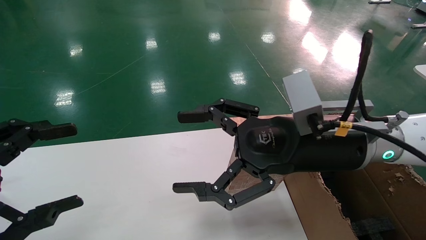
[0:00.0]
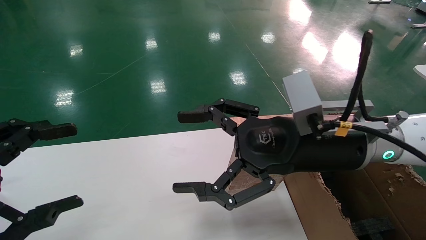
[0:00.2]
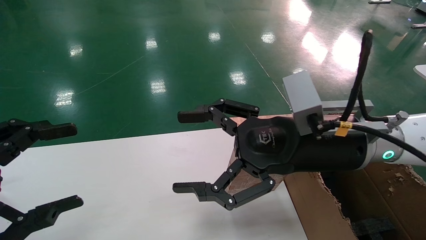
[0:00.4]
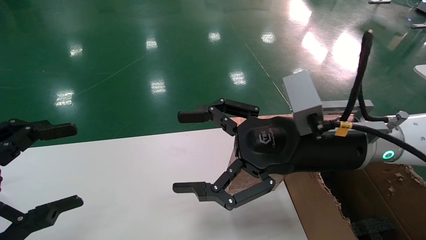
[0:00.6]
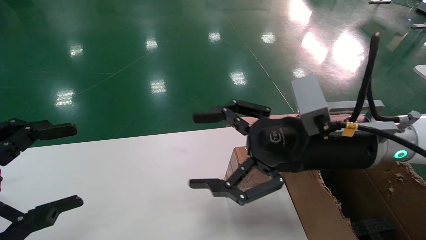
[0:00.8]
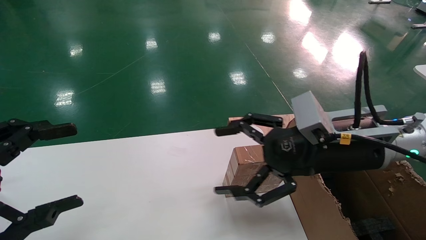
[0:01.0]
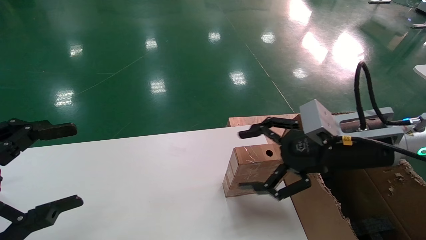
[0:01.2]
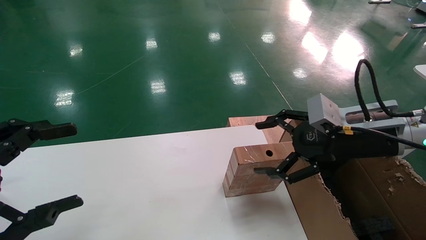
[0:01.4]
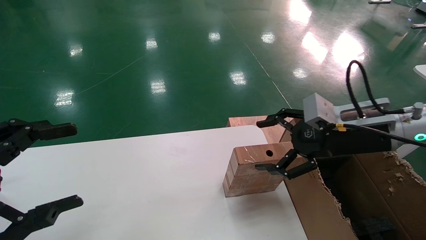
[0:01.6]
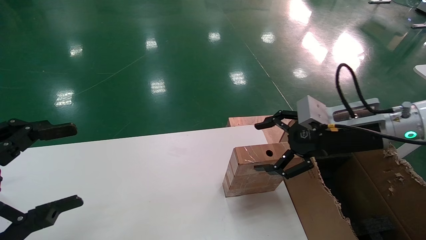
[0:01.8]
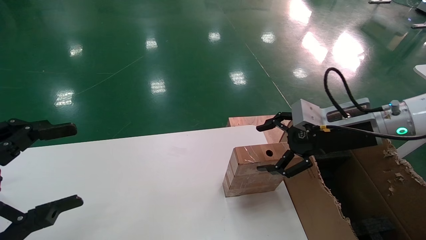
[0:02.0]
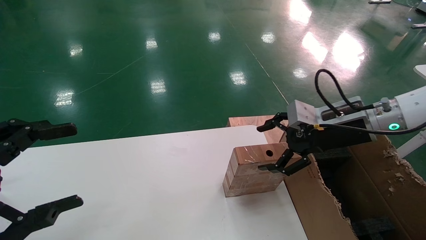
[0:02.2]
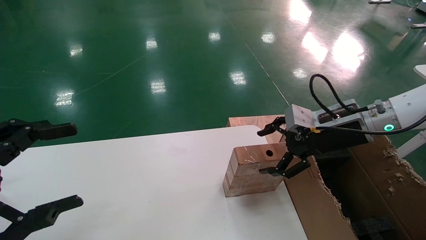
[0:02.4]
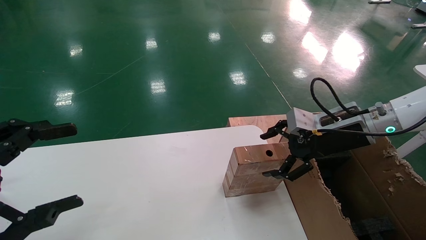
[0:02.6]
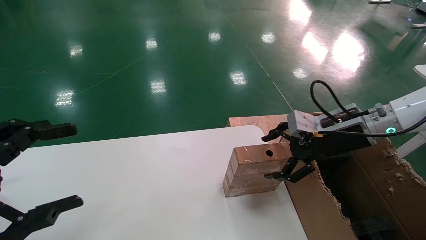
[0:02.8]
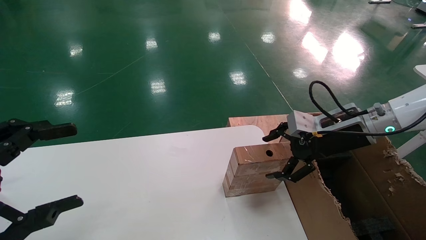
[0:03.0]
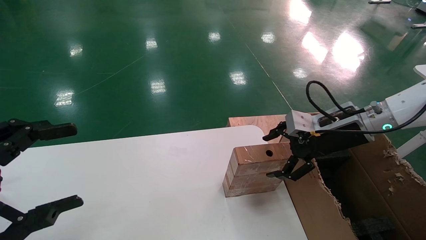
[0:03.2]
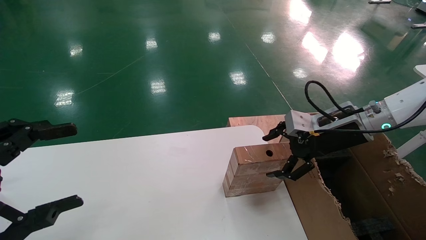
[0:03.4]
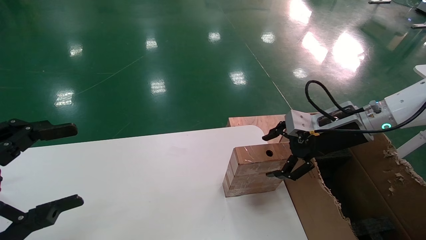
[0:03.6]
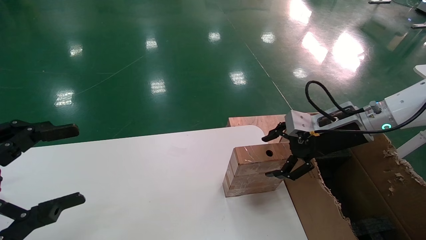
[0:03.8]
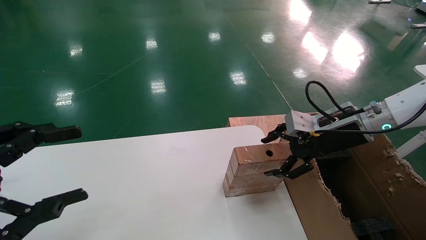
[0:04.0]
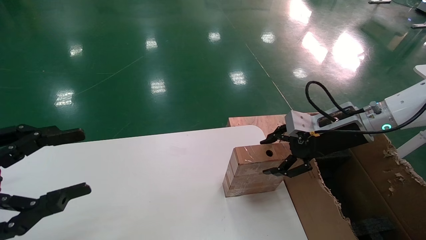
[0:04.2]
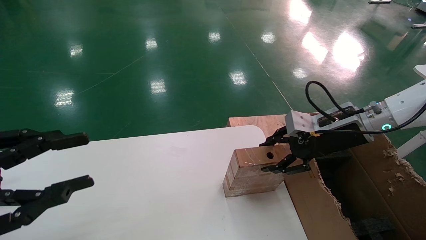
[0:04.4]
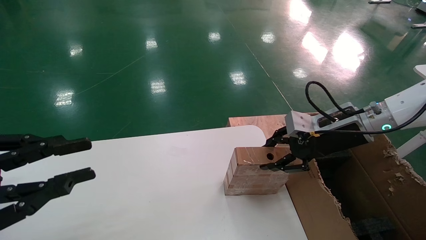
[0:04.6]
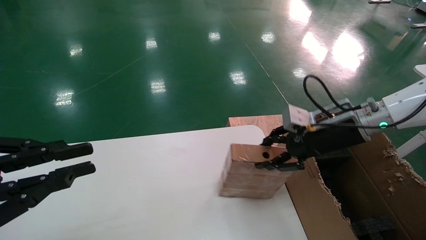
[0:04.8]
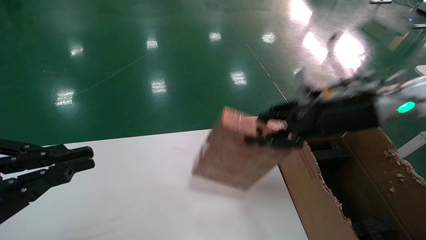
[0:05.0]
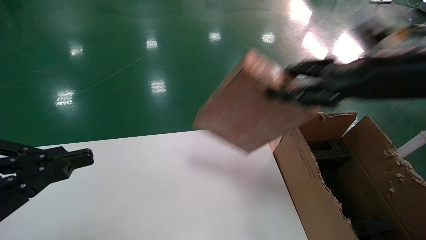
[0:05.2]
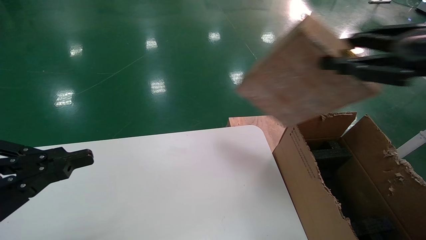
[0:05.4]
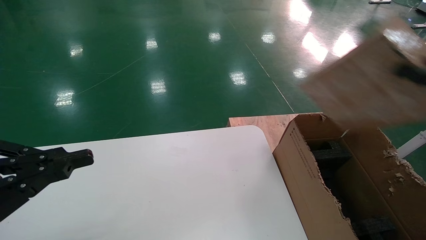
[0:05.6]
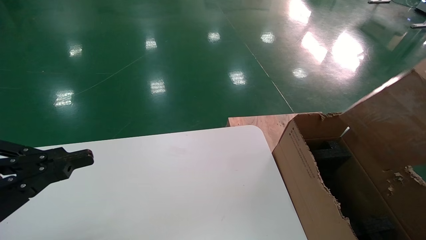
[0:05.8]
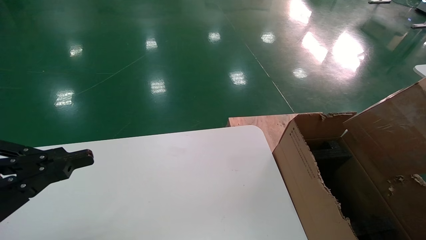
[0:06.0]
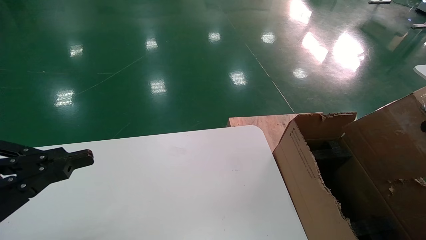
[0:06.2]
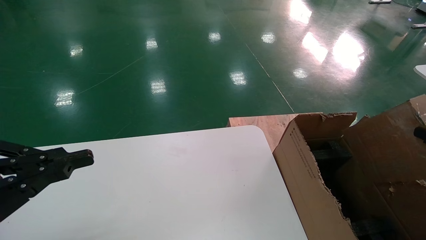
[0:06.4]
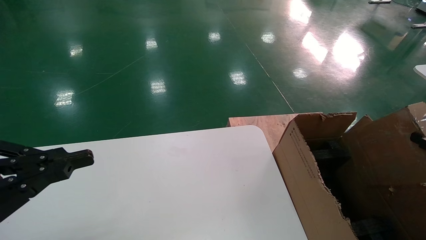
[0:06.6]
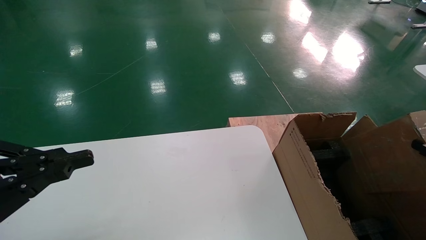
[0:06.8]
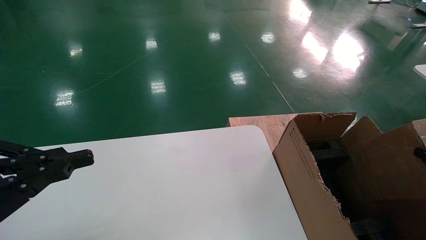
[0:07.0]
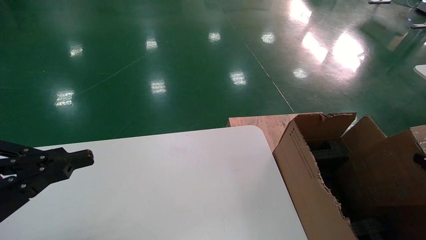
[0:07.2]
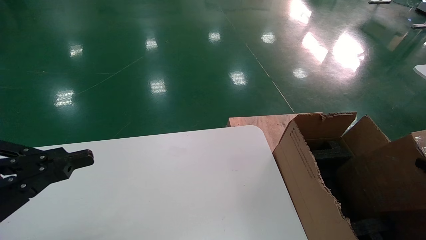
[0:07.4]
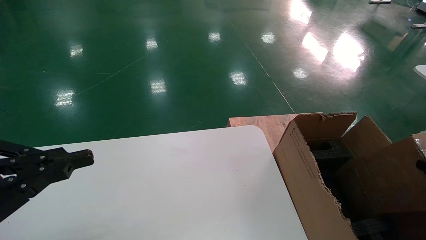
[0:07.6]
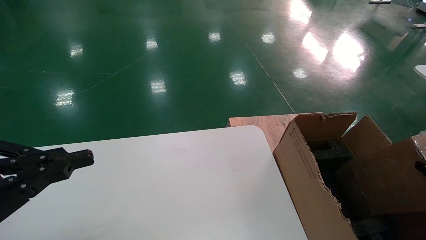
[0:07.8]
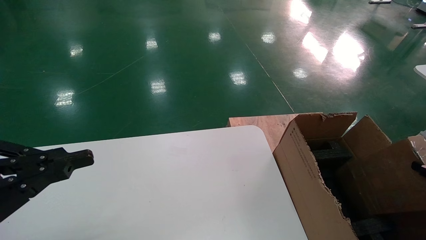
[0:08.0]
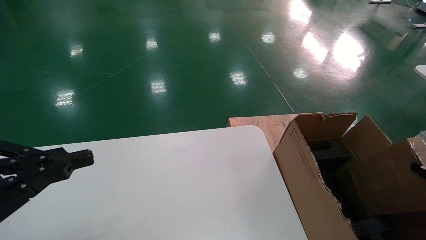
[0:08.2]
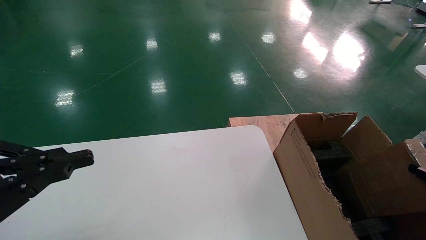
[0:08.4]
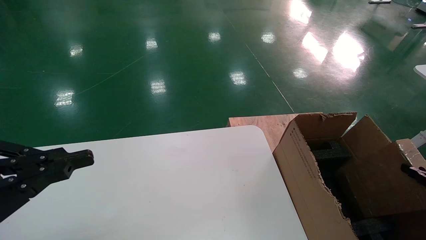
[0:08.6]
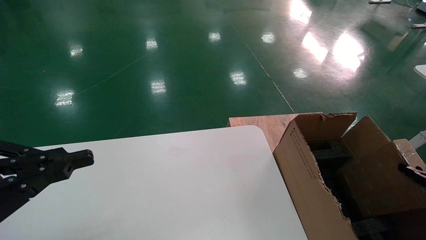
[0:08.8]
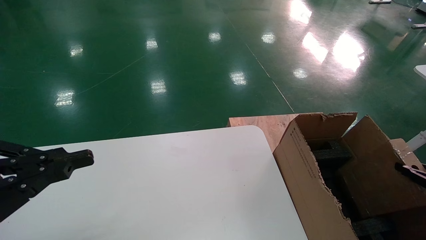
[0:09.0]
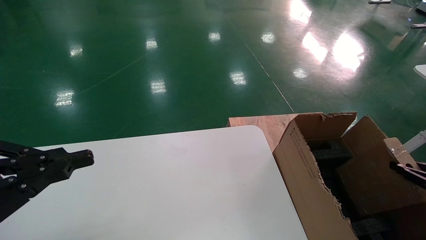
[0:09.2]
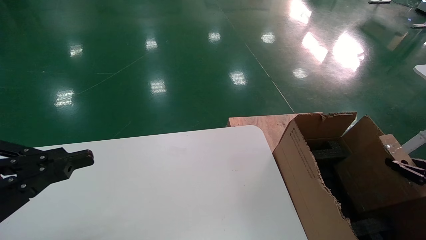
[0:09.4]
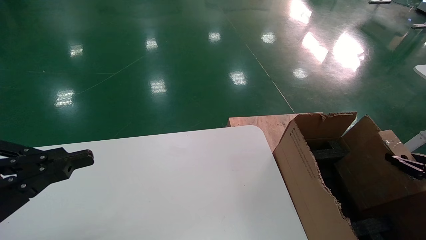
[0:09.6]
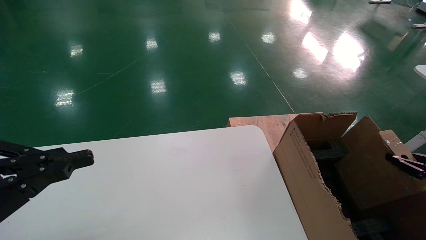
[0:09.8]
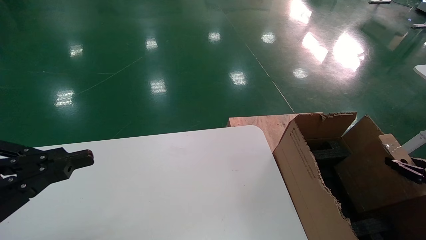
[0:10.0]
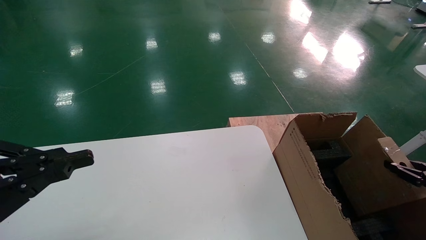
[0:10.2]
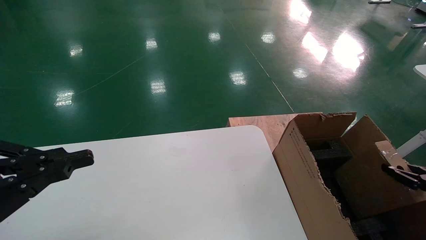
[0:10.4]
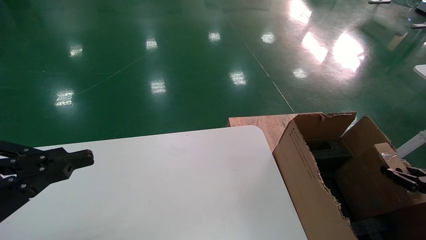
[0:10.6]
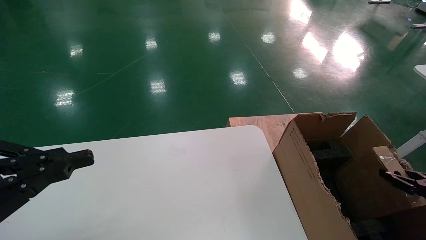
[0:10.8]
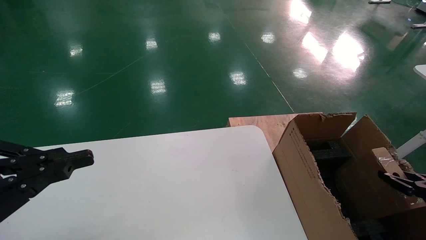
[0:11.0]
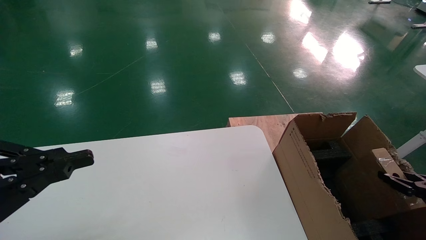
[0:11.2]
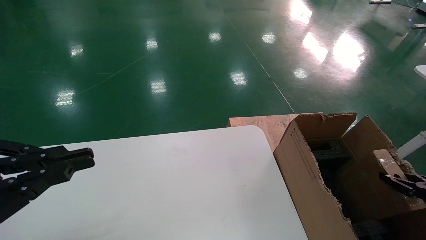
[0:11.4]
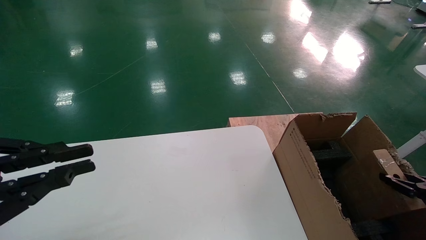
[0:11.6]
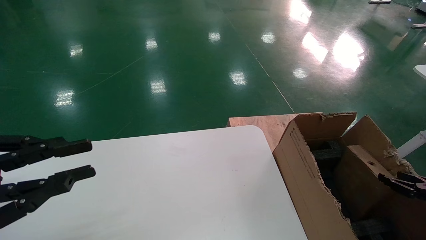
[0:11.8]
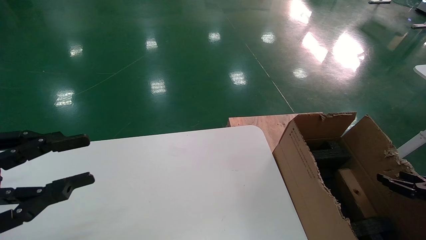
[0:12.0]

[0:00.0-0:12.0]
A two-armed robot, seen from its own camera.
Task of the whole recording: put the box on the table into the big box.
Step, 0:01.2 to 0:04.8: Pick up the mouse and the power cord paper box.
Step, 0:05.0 to 0:12.0: Place the mouse and the power cord paper box into the container.
0:00.0 to 0:01.6: The right gripper goes roughly 10 cm to the right.
0:01.6 to 0:03.0: The right gripper shifts some 5 cm forward.
0:03.0 to 0:04.4: The left gripper closes its fingers. The right gripper closes its fingers.
0:04.4 to 0:06.0: The right gripper goes approximately 30 cm backward and to the right, and closes its fingers. The left gripper closes.
0:06.0 to 0:07.6: The right gripper is displaced downward and to the right by about 15 cm.
0:07.6 to 0:09.0: The right gripper heads forward, covering roughly 5 cm.
0:09.0 to 0:12.0: There are only small adjustments of the grippers.

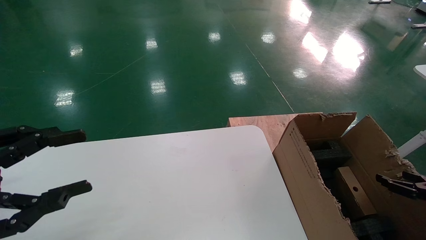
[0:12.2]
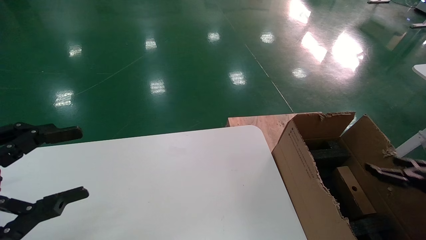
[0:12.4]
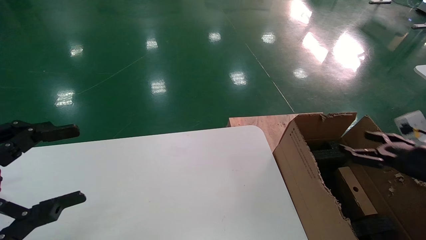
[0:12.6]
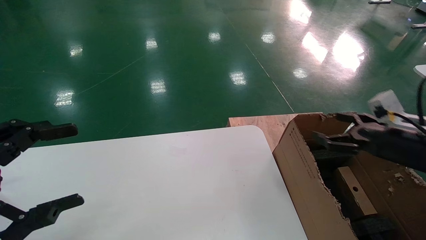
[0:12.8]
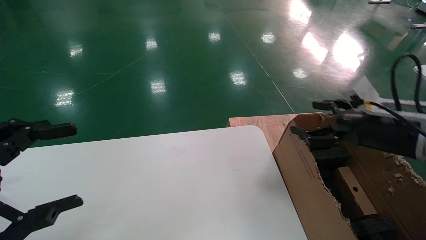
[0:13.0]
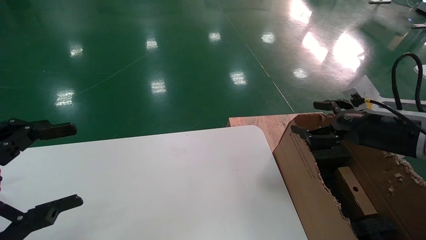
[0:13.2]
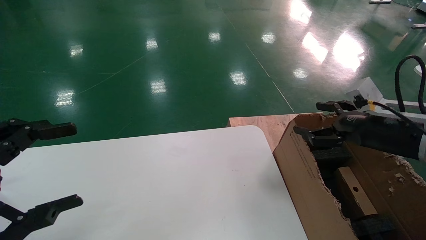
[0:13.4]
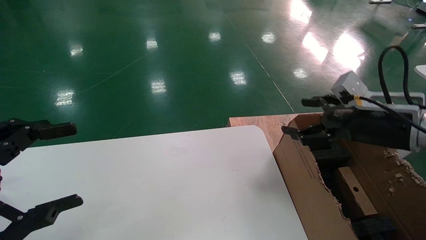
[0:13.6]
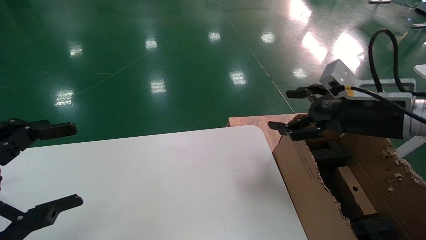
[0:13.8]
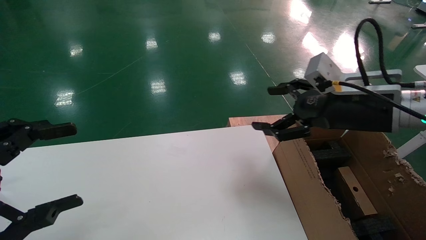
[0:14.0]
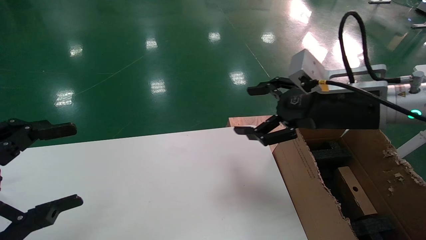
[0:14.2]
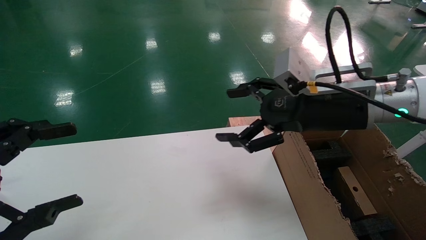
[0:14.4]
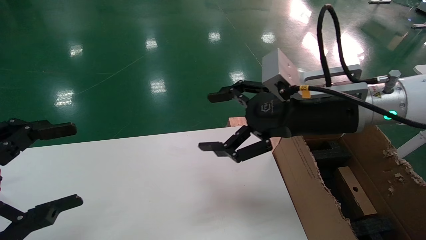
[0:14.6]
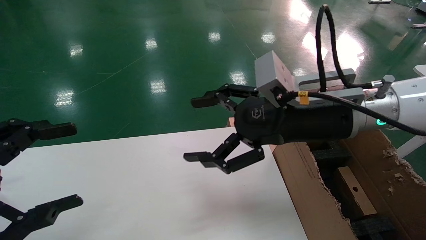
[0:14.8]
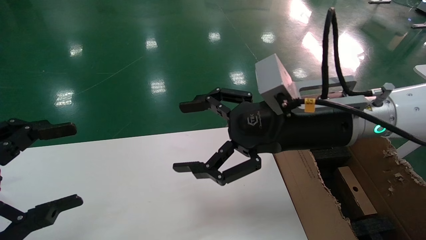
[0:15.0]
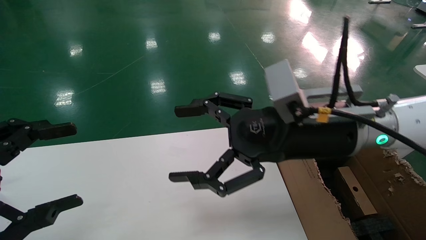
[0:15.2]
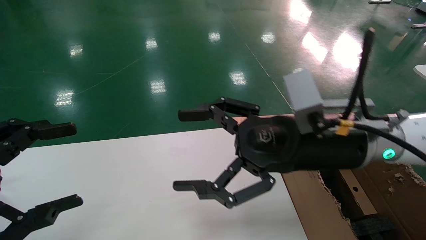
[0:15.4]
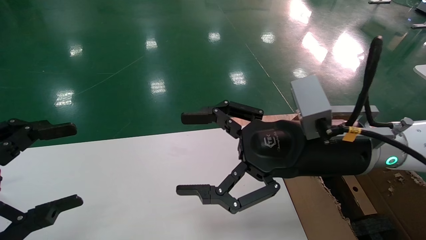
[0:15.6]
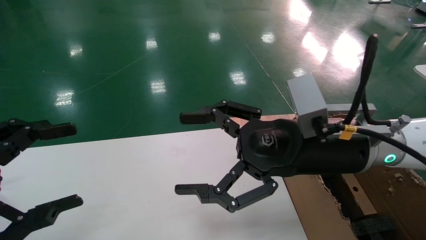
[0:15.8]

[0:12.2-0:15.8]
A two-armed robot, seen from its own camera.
Task of the whole recording: put the box on the table into the big box.
0:12.2 to 0:14.0: The right gripper is displaced to the left and upward by some 35 cm, and opens its fingers. The left gripper opens.
0:14.0 to 0:15.8: The right gripper moves to the left, roughly 10 cm.
